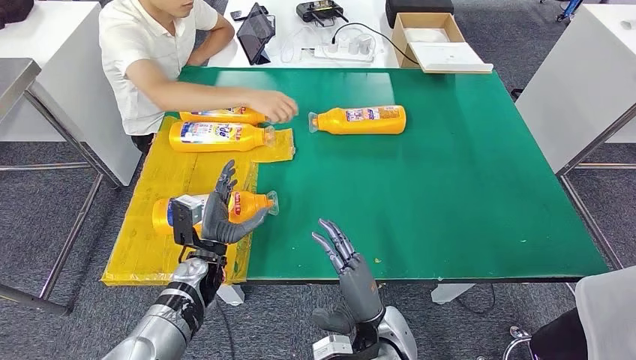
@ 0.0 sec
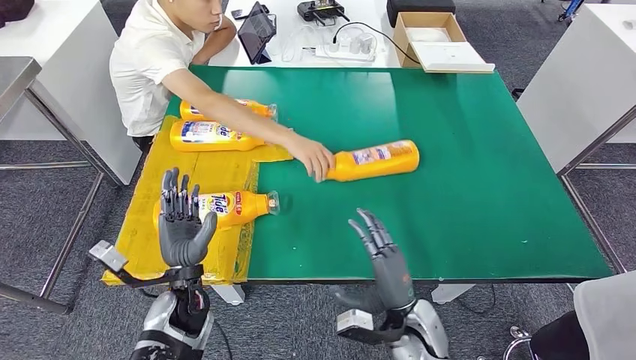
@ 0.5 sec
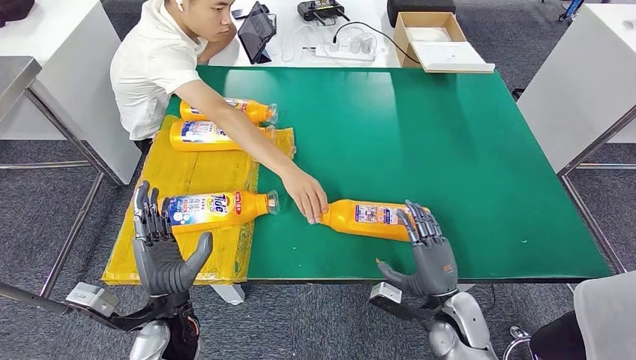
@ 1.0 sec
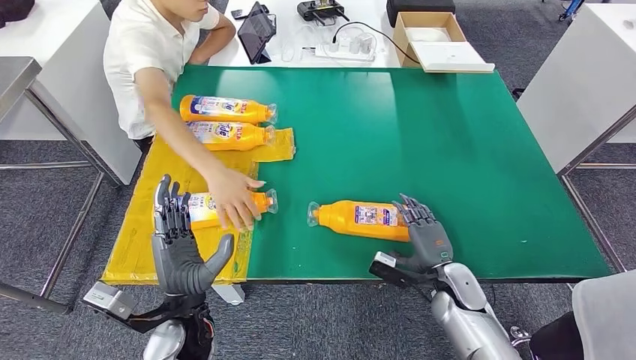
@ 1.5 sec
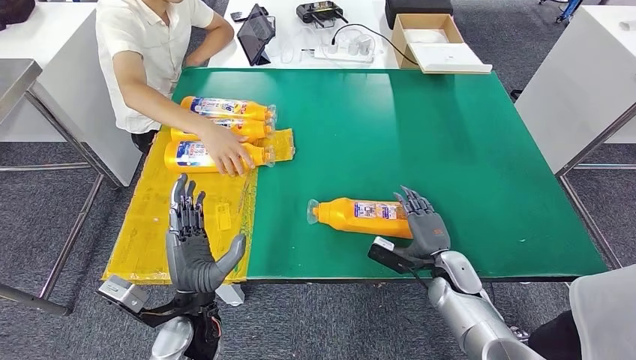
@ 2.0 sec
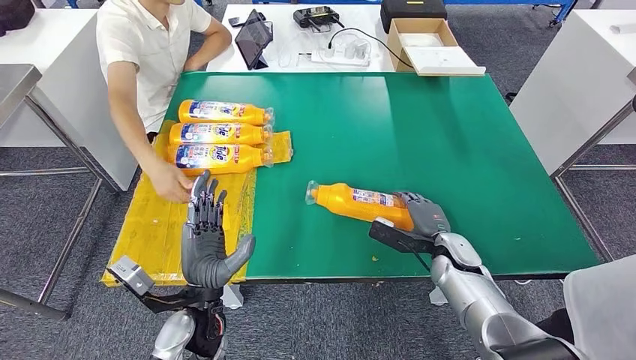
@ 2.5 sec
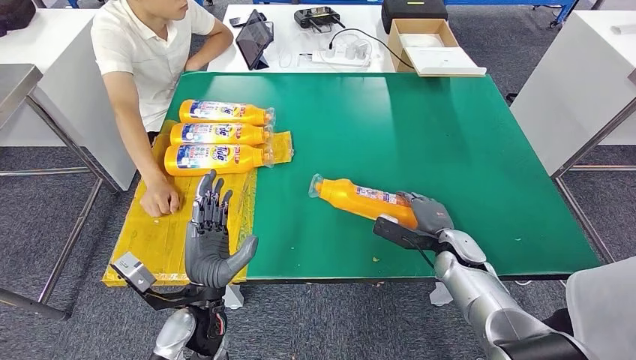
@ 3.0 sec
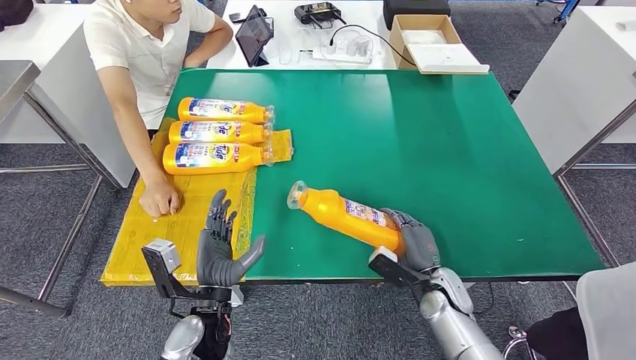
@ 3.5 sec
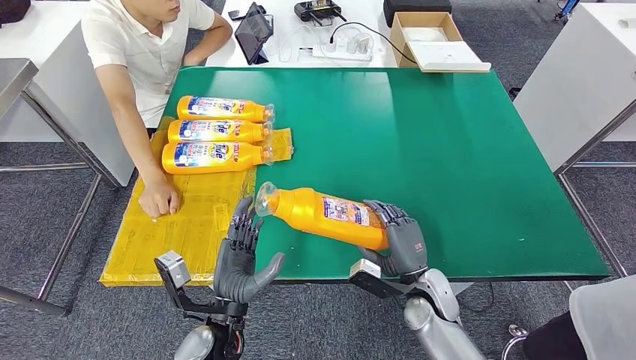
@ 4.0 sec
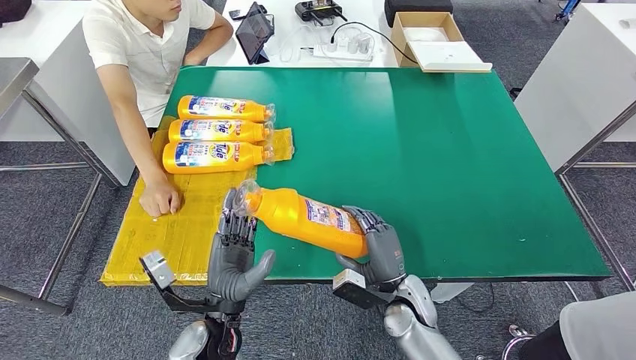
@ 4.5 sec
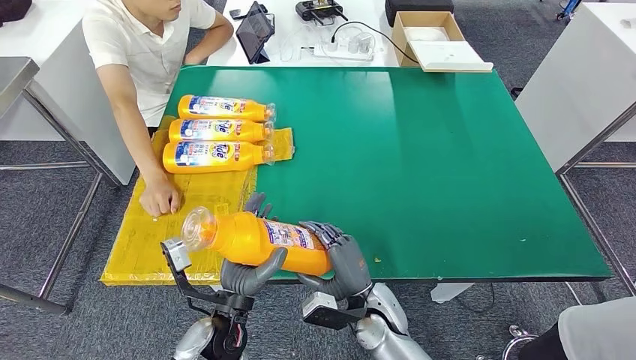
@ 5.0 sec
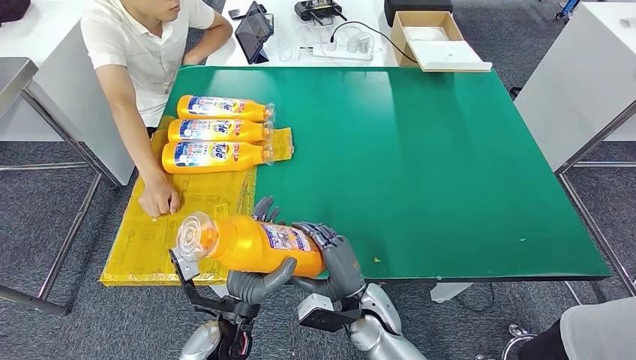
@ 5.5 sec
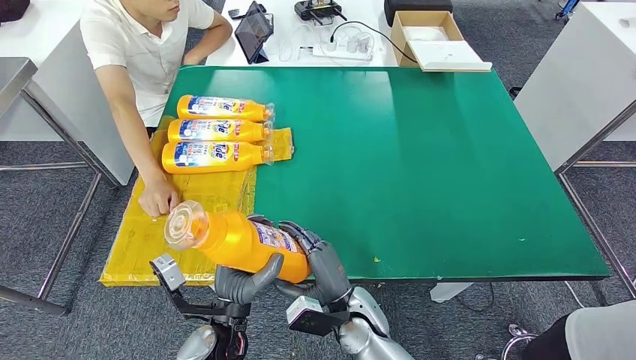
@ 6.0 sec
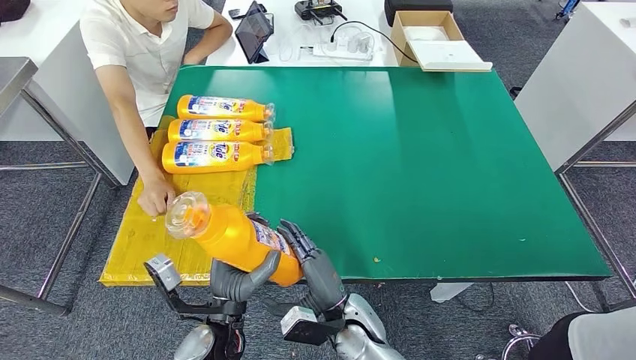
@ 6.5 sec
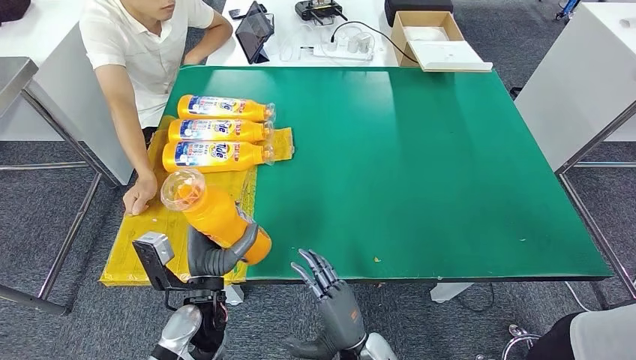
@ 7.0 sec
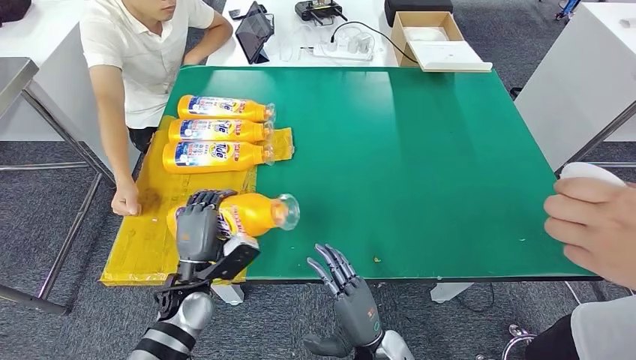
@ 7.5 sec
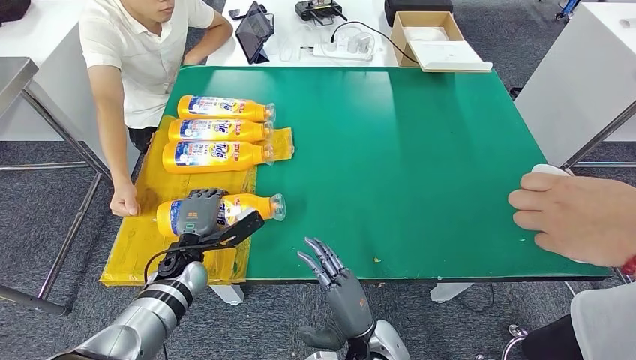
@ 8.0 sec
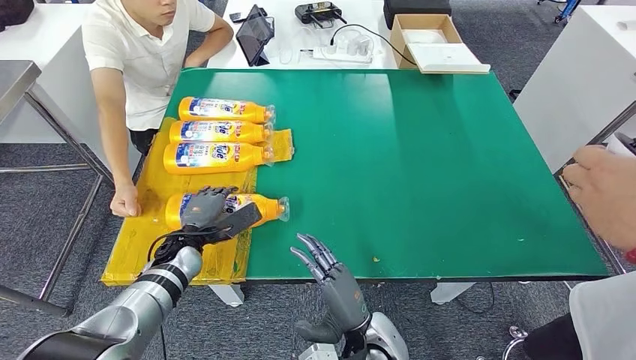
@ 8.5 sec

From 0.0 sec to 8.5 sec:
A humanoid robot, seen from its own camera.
Step, from 0.0 sec to 5.5 sec: Pick up the fast-moving consumer goods bottle from the table.
Step, from 6.0 sec to 8.5 sec: Flip the fast-moving consumer goods bottle to the front side.
From 4.0 sec to 6.5 sec: The right hand is displaced to the left by some 15 cm.
